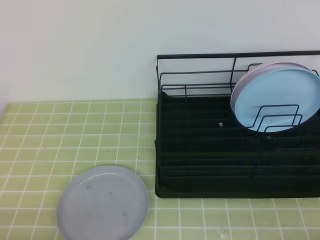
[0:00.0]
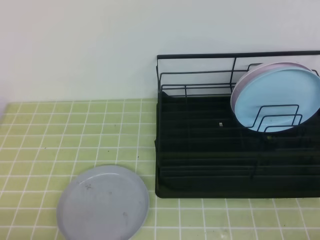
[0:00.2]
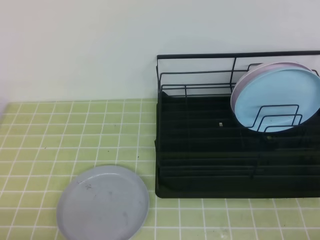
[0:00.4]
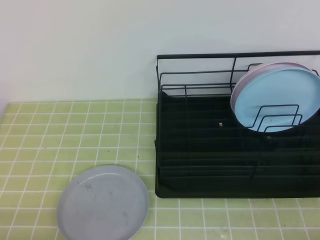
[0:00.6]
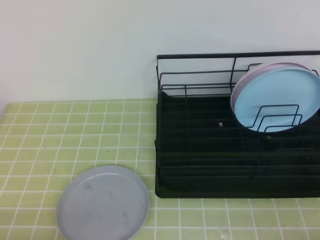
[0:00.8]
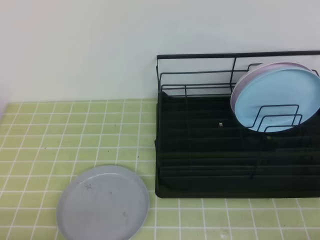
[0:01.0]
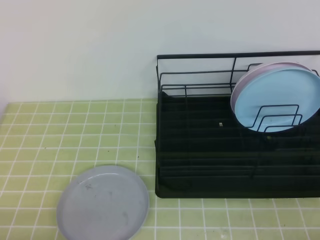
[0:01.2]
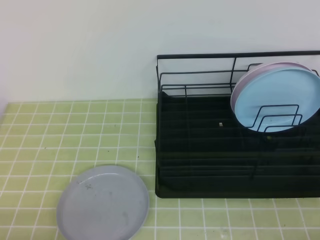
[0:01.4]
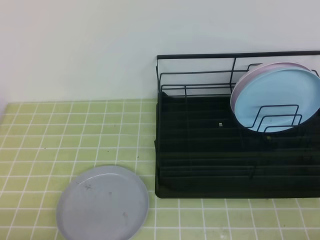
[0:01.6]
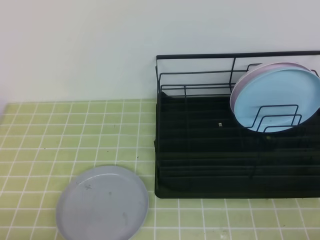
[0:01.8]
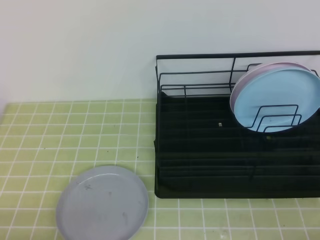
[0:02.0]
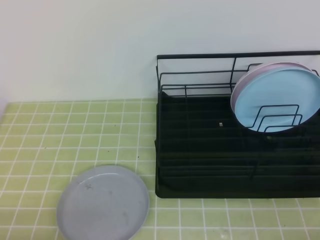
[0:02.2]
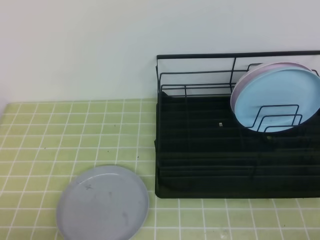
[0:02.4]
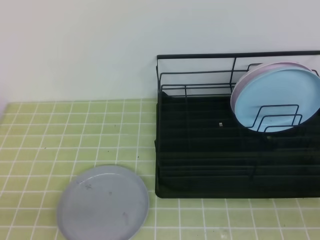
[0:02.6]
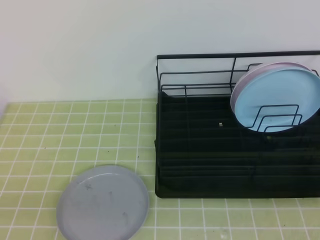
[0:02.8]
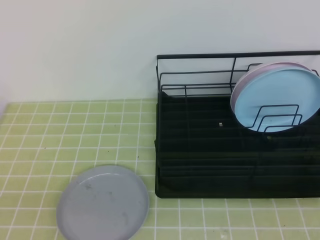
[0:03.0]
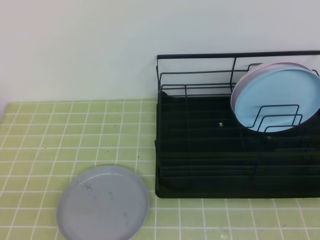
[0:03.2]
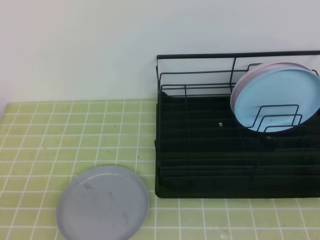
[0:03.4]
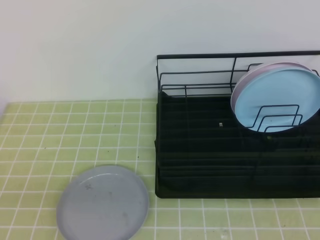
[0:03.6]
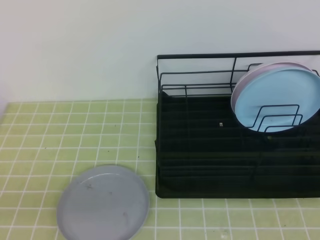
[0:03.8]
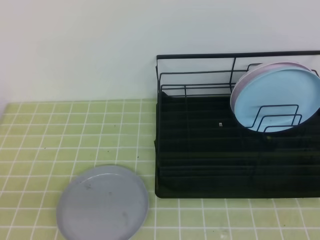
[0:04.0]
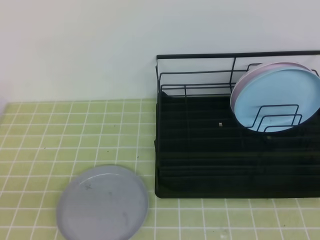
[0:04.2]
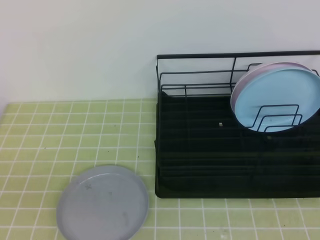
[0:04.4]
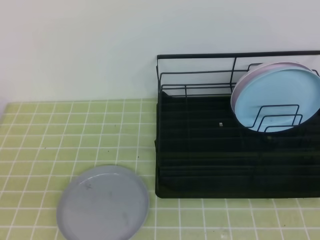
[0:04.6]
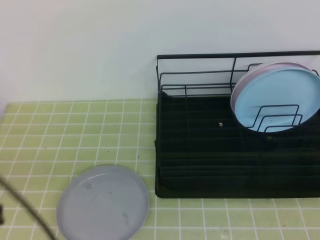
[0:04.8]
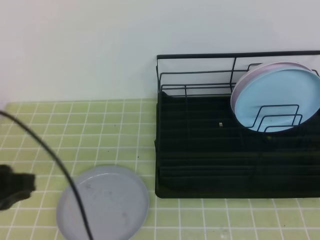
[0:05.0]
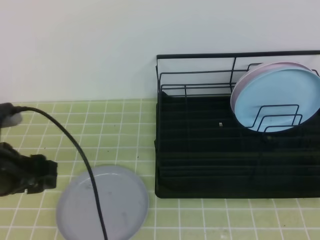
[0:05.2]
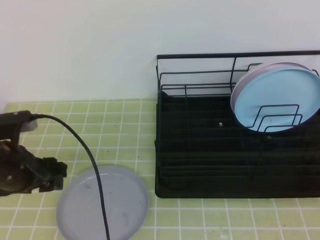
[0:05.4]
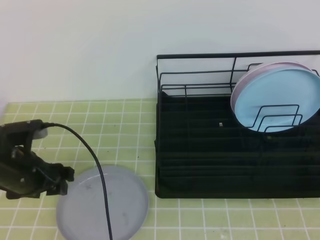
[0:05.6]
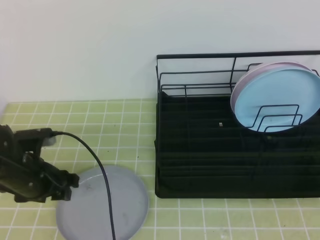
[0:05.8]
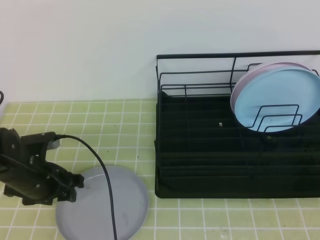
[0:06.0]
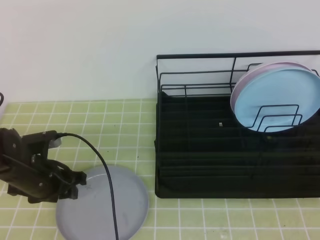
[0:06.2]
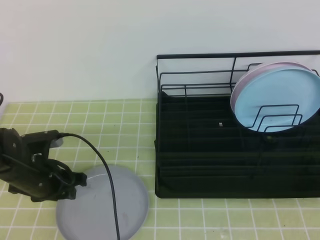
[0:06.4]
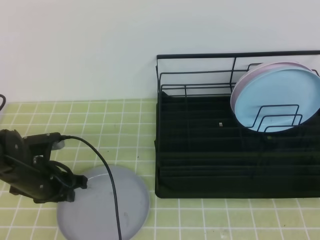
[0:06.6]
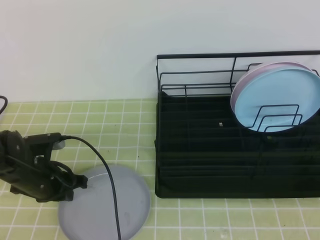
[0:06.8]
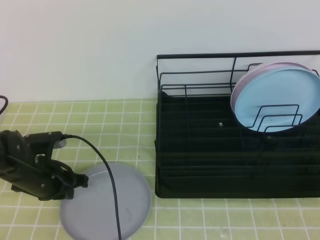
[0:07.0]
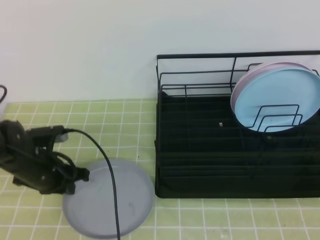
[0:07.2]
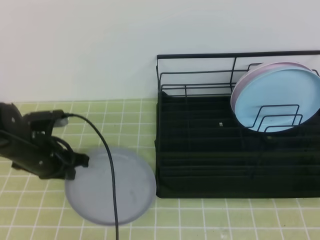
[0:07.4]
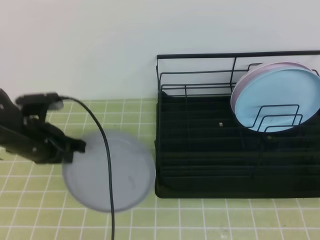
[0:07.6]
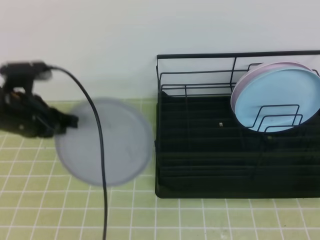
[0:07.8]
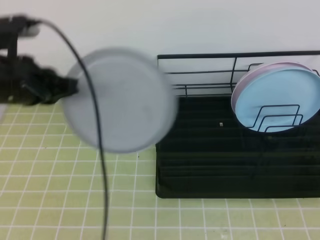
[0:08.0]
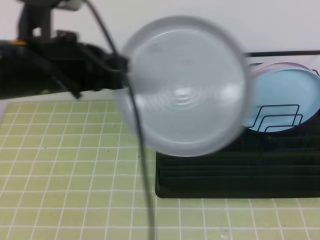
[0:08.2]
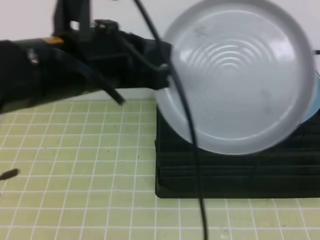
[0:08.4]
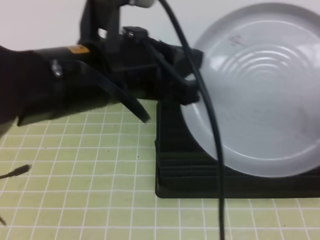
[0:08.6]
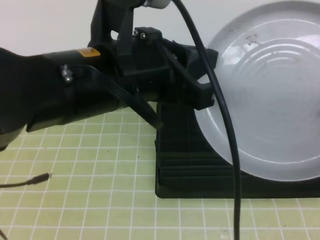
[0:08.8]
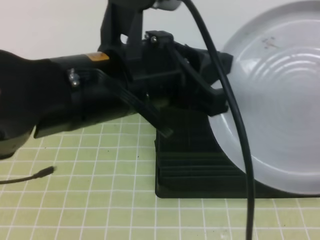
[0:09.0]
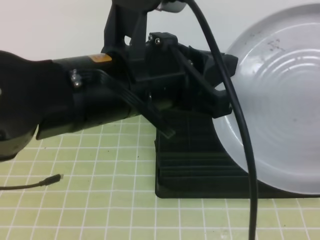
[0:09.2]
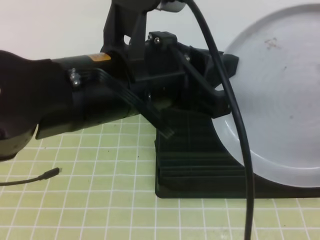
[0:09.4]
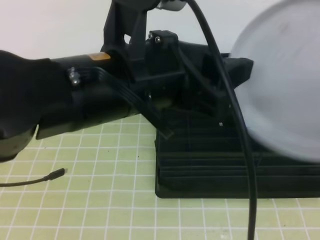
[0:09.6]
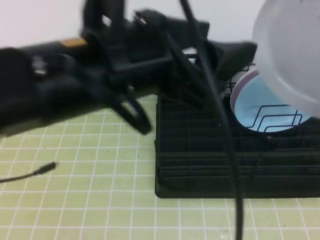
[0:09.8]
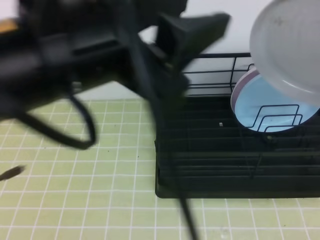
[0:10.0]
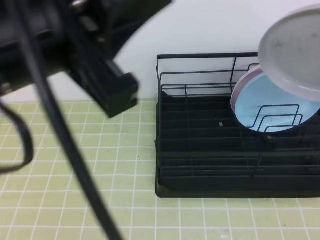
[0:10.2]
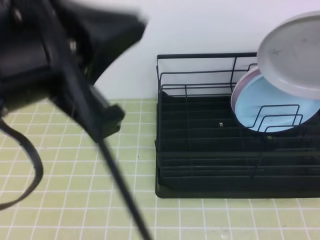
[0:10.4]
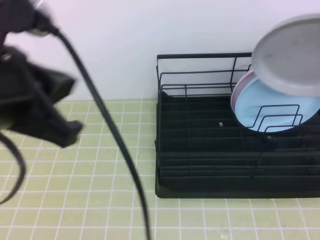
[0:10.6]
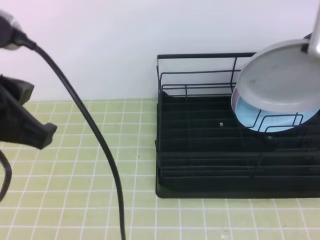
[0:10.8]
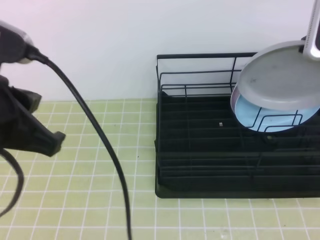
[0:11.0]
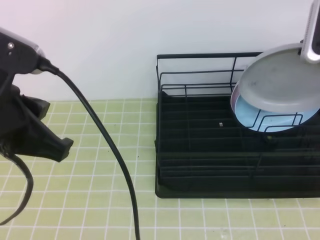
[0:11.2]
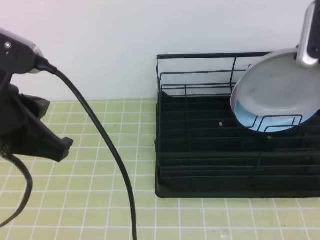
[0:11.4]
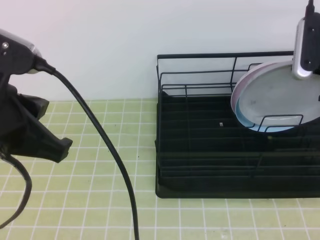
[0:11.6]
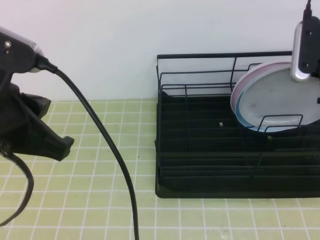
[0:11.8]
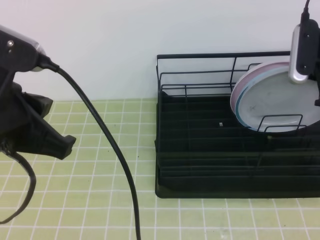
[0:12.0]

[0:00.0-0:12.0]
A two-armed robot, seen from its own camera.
Step, 0:00.0 to 0:05.8: Left grab the gray plate.
Step, 0:08.0 to 0:10.6: Right place it at the front of the shelf.
0:00.0 to 0:01.6: Neither gripper changes place.
0:04.4 to 0:06.0: The left gripper is displaced forward and downward by about 30 cm, and opens.
0:06.0 to 0:07.6: The left gripper goes about 5 cm upward, and closes.
0:07.6 to 0:09.0: The right gripper goes some 10 cm upward, and opens up, while the left gripper heads upward, to the right and backward, covering approximately 30 cm.
0:09.0 to 0:10.4: The right gripper travels forward by approximately 20 cm, and closes. The left gripper moves to the left and backward, about 10 cm, and opens and closes again.
0:10.4 to 0:12.0: The left gripper travels downward by some 5 cm. The right gripper travels downward and forward by approximately 15 cm.

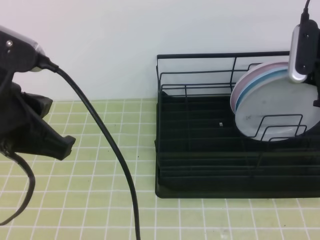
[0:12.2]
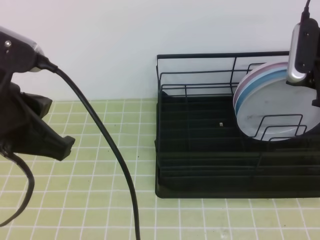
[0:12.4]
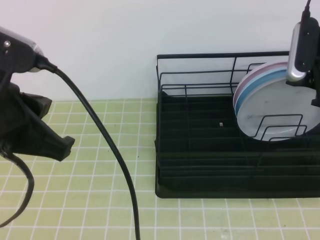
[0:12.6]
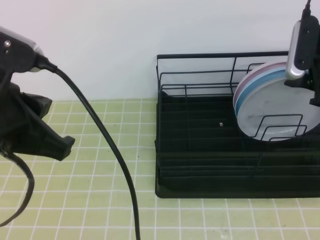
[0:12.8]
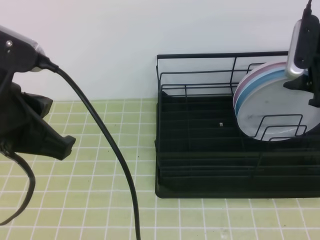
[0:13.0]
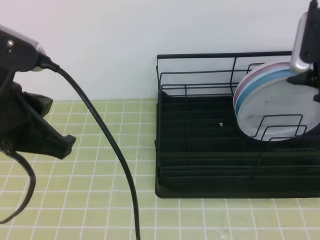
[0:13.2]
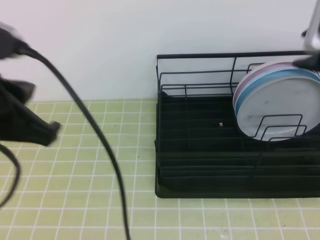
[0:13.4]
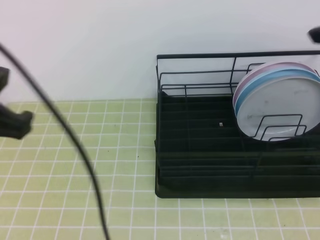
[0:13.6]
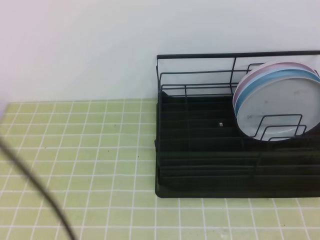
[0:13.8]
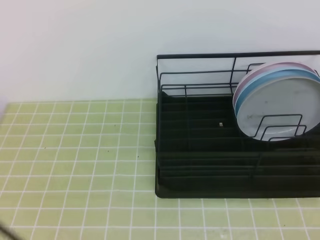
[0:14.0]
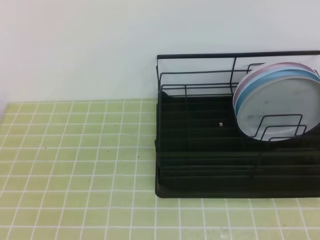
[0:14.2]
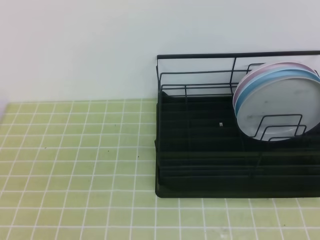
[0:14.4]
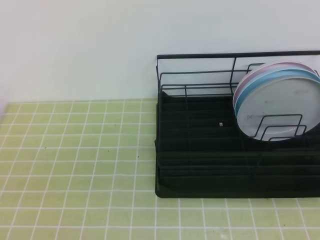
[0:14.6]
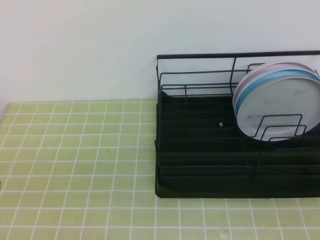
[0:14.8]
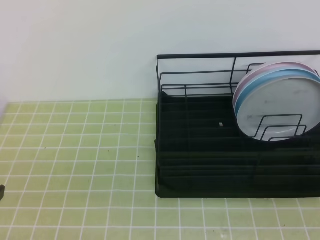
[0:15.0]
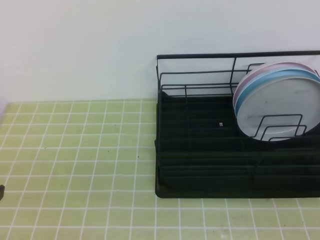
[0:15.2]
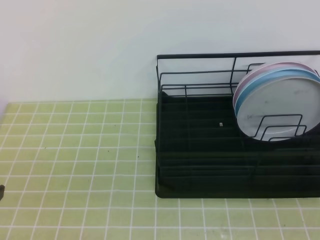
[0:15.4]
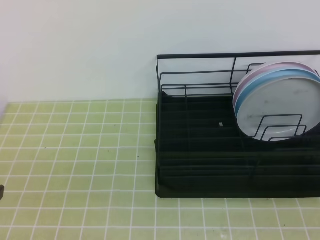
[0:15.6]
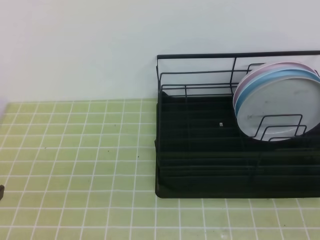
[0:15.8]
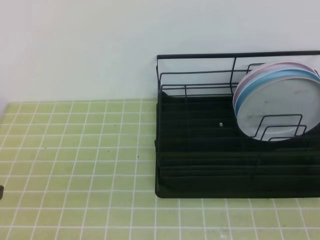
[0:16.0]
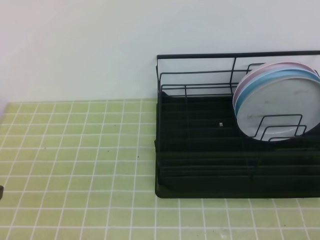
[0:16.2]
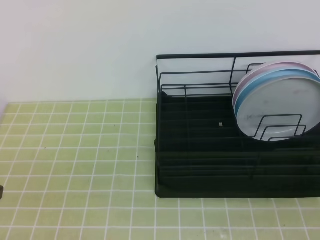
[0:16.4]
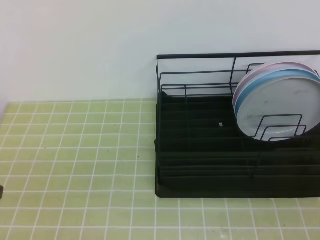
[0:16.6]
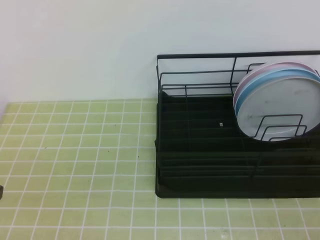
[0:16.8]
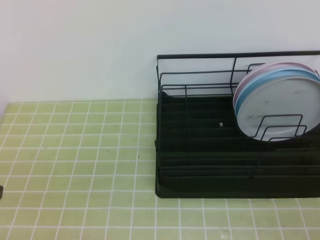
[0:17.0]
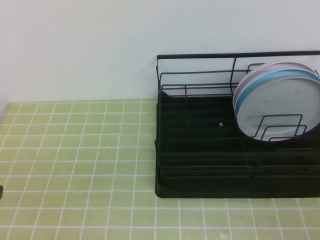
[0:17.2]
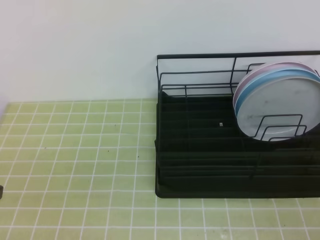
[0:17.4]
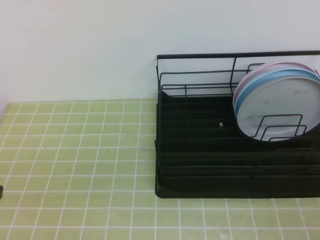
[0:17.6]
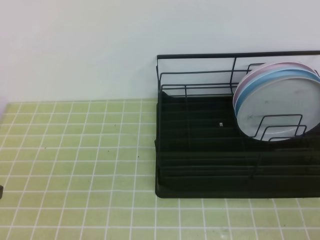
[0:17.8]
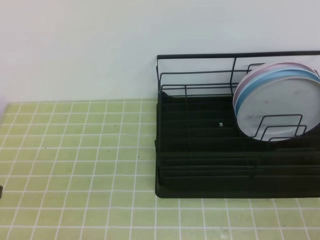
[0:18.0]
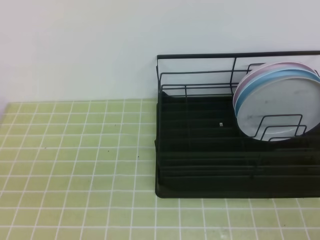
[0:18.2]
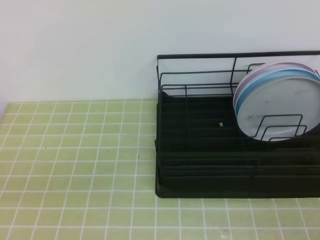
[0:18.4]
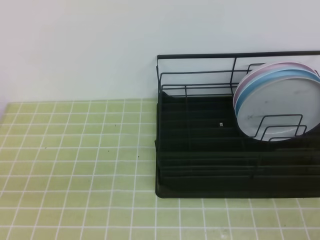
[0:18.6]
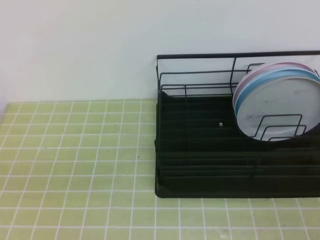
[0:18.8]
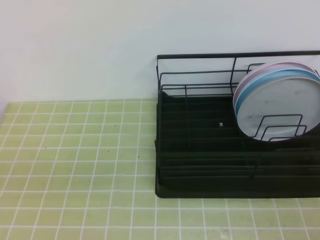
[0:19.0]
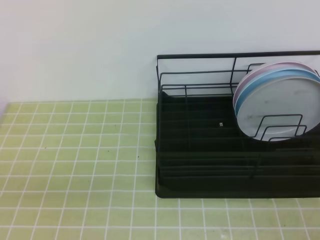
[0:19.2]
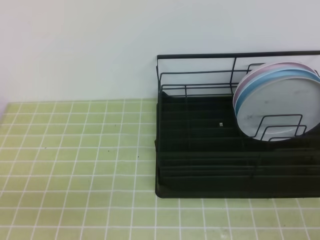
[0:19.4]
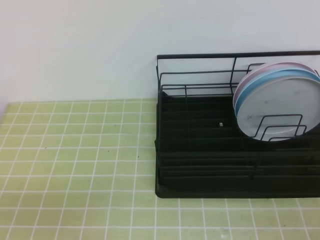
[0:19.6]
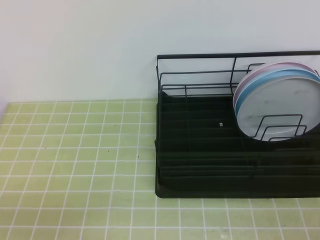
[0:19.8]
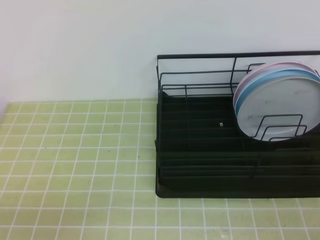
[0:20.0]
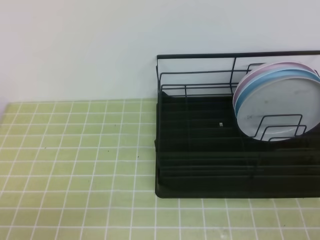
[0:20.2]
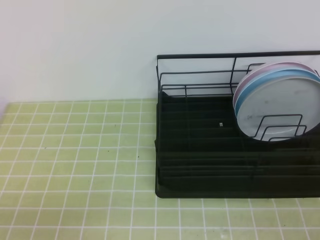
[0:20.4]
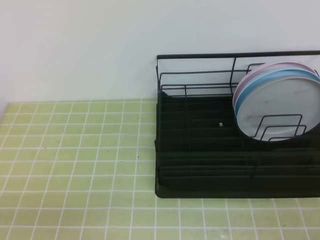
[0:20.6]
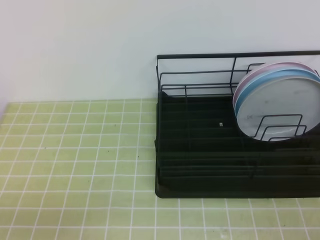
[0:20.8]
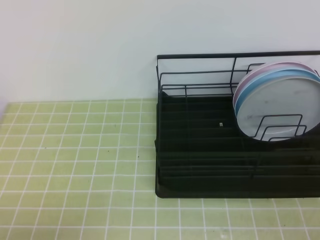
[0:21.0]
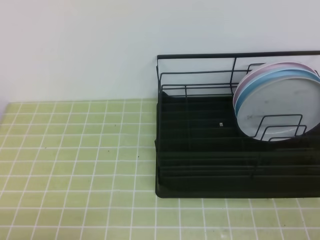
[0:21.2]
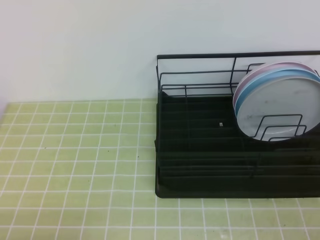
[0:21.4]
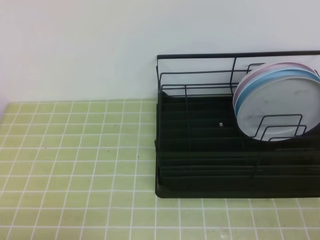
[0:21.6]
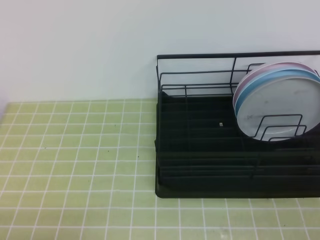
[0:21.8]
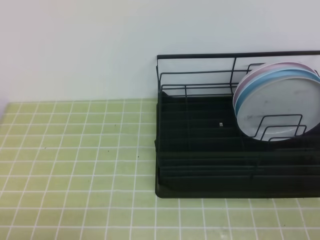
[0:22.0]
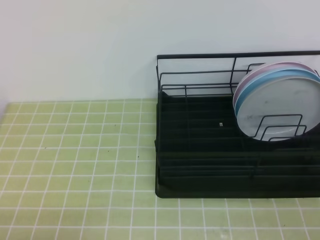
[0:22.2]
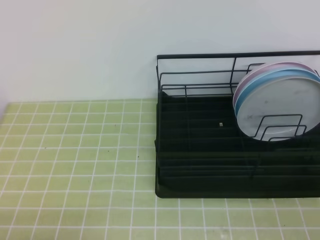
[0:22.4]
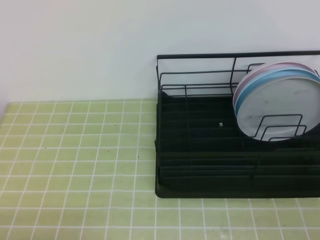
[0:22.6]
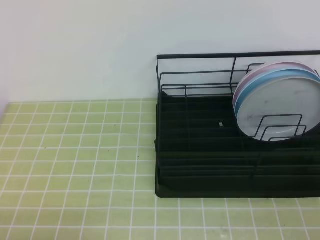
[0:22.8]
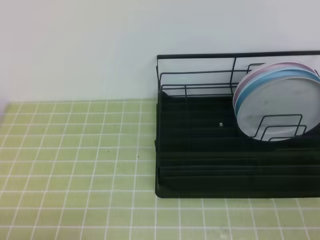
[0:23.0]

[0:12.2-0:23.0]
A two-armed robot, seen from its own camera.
0:12.2 to 0:13.8: The right gripper heads backward and upward, covering approximately 20 cm, and closes its fingers. Meanwhile the left gripper ends up approximately 5 cm from where it was.
0:13.8 to 0:15.2: The right gripper goes some 25 cm backward and downward, while the left gripper is displaced downward by some 10 cm.
0:21.4 to 0:23.0: Neither gripper changes place.
